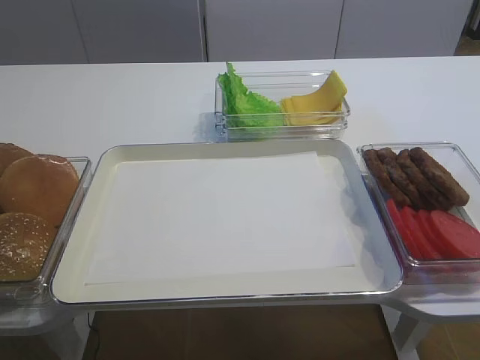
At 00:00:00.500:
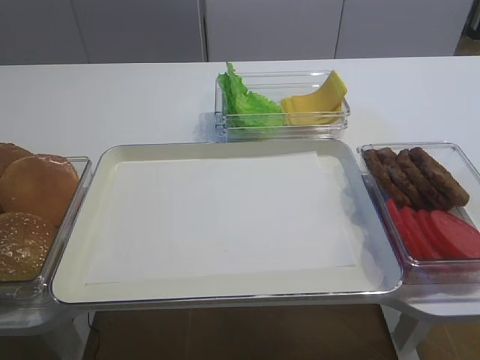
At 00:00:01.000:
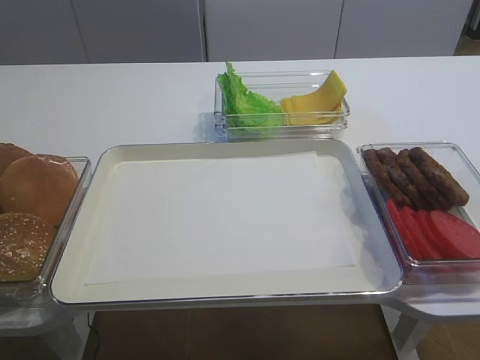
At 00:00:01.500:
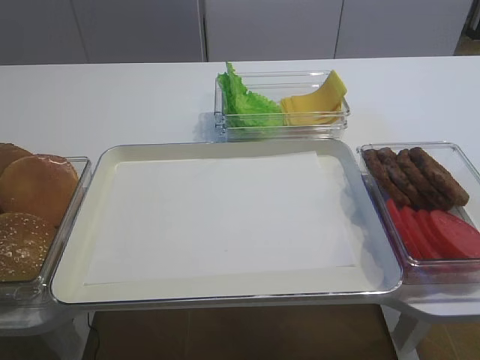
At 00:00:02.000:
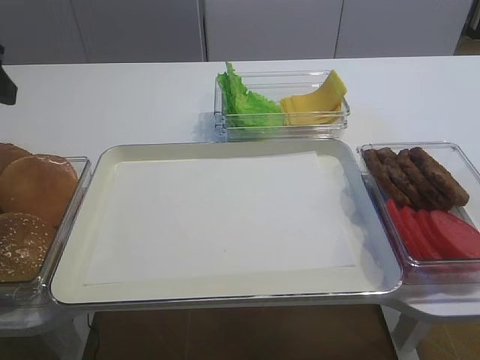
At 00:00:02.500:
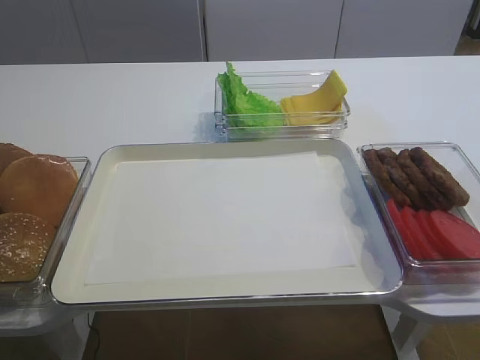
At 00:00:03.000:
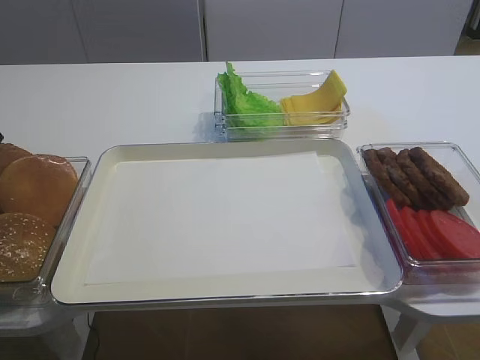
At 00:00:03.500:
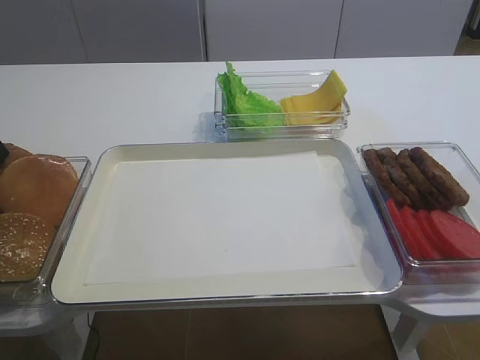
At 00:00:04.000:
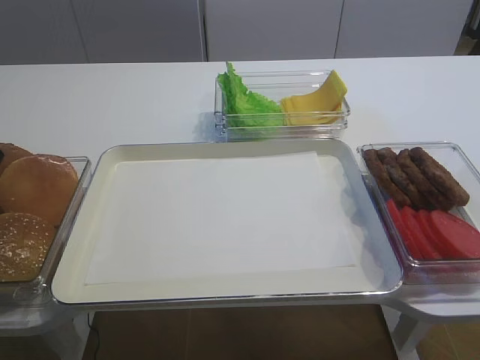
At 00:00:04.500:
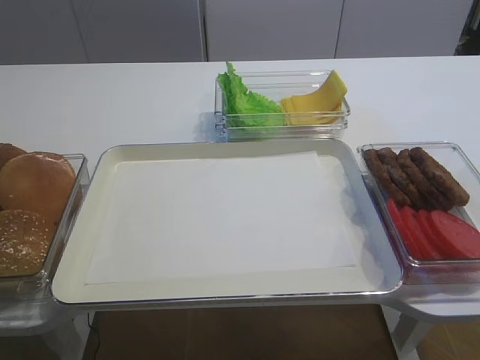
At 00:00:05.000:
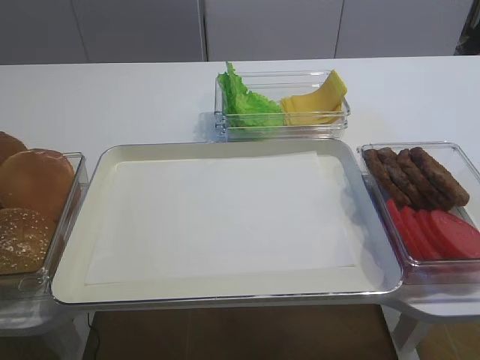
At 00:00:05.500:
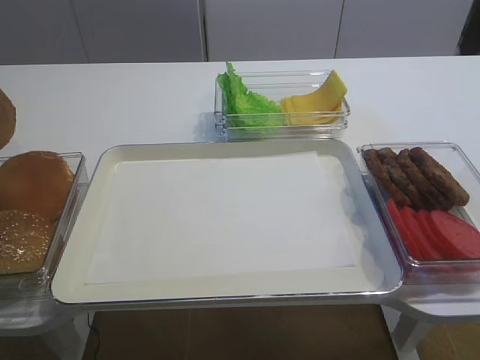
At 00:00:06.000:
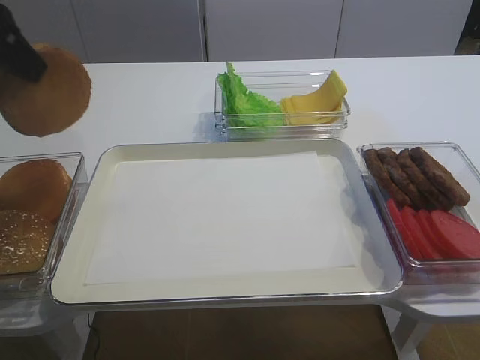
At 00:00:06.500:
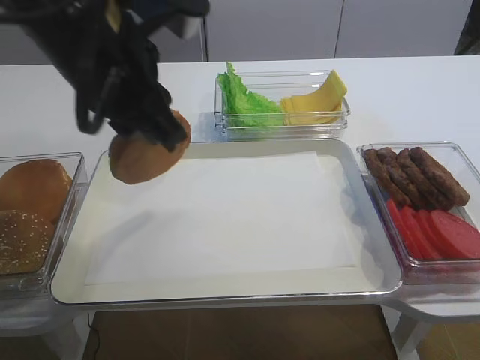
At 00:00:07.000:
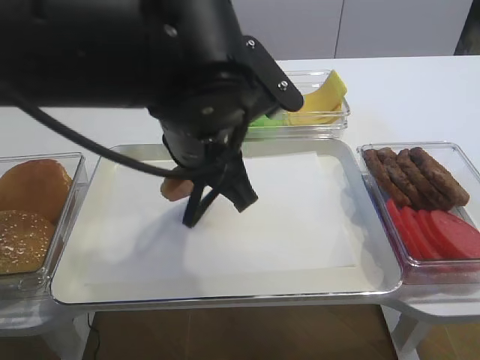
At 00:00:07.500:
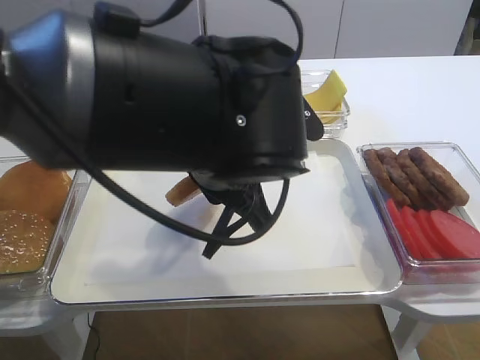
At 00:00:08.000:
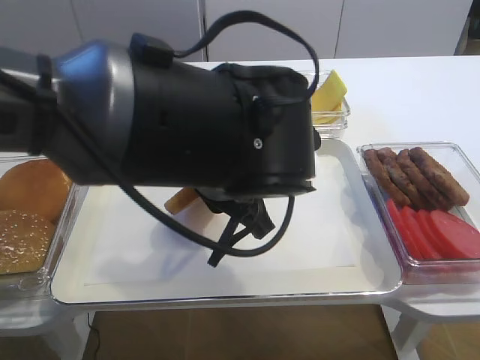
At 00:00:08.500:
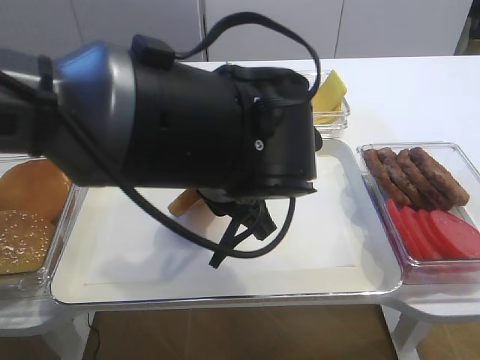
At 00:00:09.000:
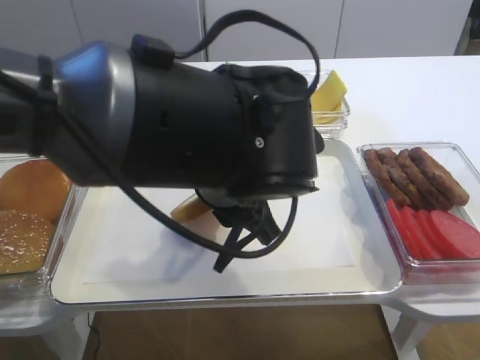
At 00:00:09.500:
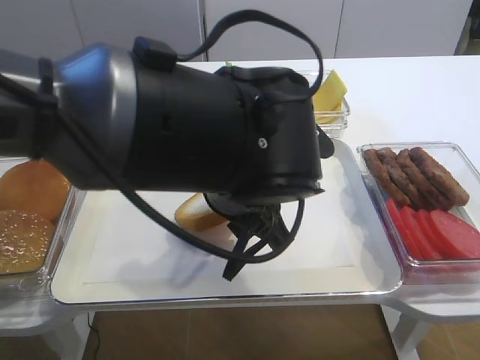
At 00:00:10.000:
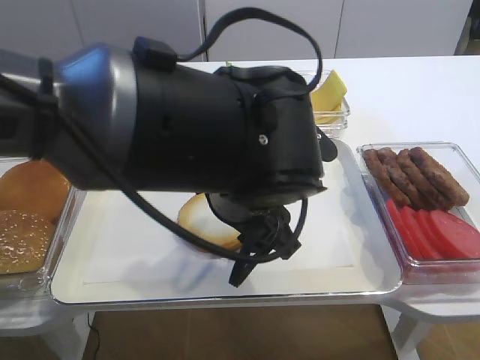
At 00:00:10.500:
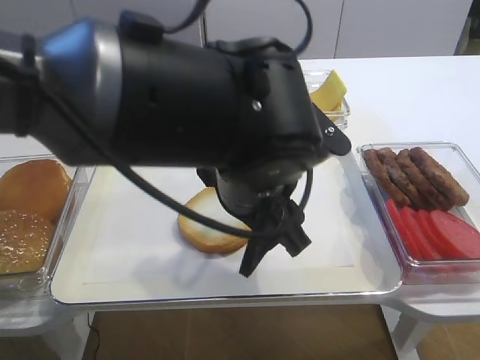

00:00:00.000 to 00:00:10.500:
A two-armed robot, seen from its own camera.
Step, 00:00:06.000 to 00:00:10.500: Place the bread slice on the tray with the left gripper.
00:00:04.000 to 00:00:06.500: The left gripper shifts some 25 cm to the right, and closes.
00:00:06.500 to 00:00:08.500: The left gripper shifts about 15 cm to the right and downward.
00:00:08.500 to 00:00:10.500: The left gripper opens up.

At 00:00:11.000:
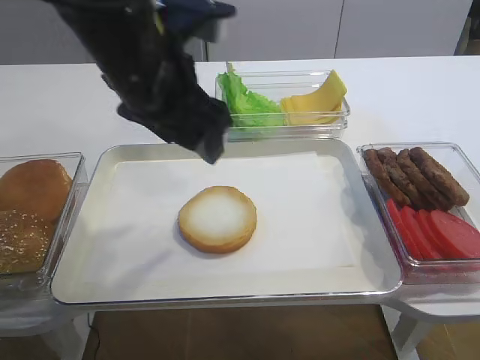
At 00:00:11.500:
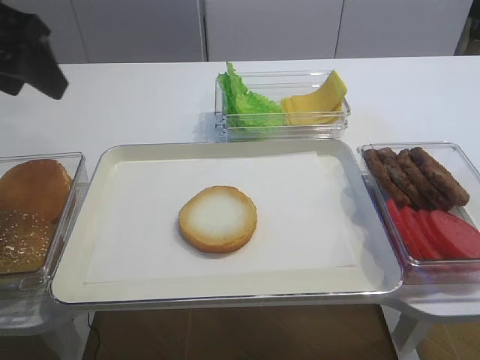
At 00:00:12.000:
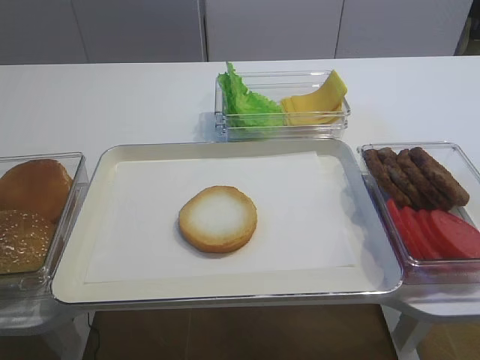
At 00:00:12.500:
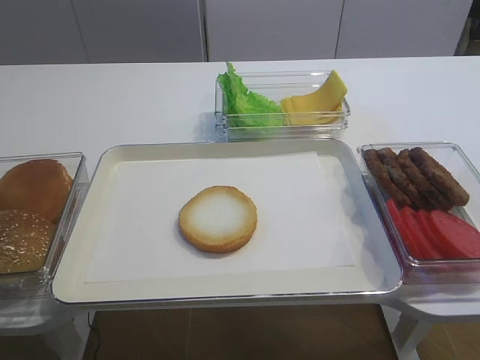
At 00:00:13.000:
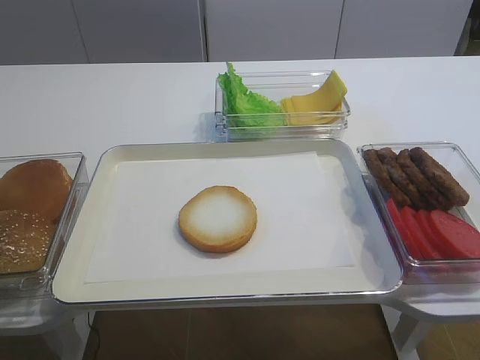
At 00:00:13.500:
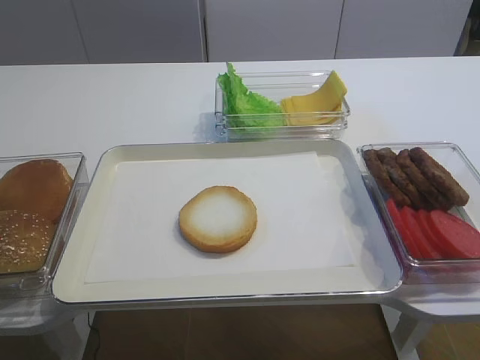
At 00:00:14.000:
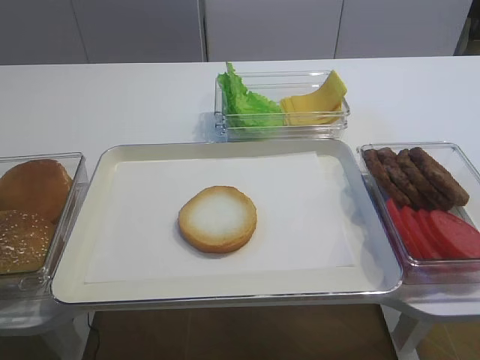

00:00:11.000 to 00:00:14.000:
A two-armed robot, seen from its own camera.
00:00:11.000 to 00:00:12.500: The left gripper shifts approximately 30 cm backward and to the left.

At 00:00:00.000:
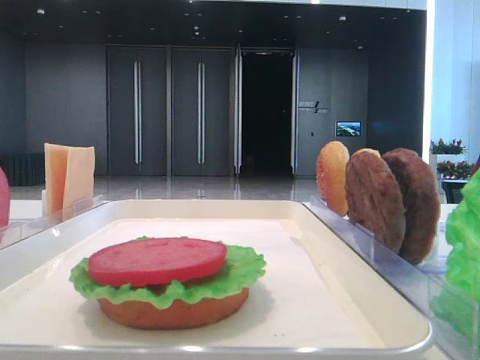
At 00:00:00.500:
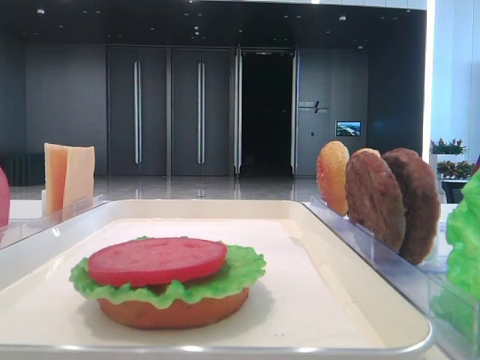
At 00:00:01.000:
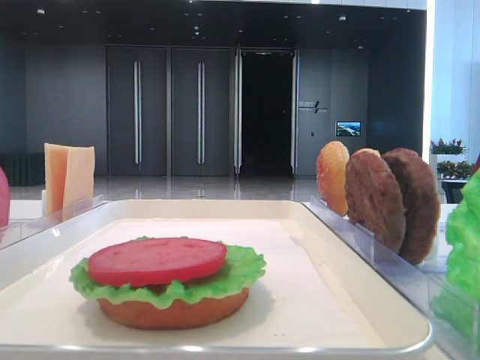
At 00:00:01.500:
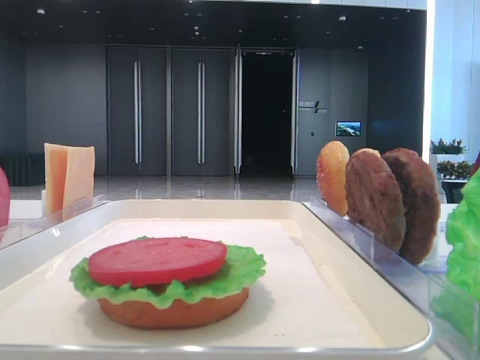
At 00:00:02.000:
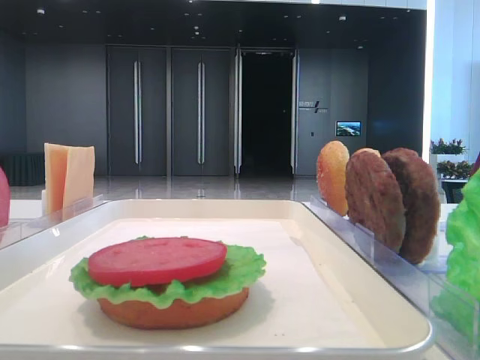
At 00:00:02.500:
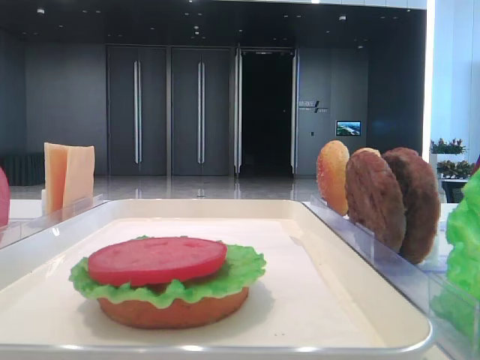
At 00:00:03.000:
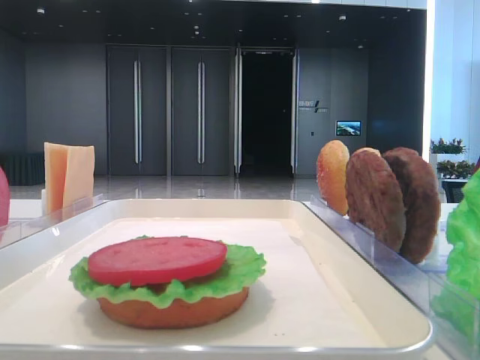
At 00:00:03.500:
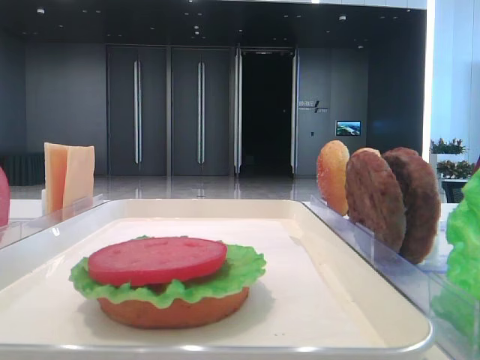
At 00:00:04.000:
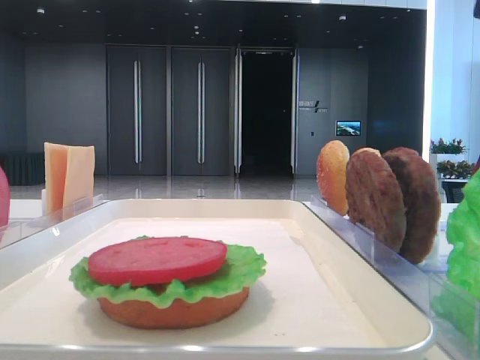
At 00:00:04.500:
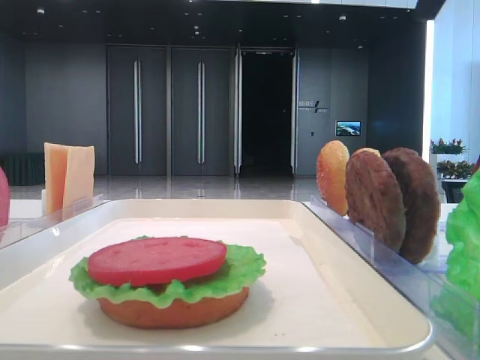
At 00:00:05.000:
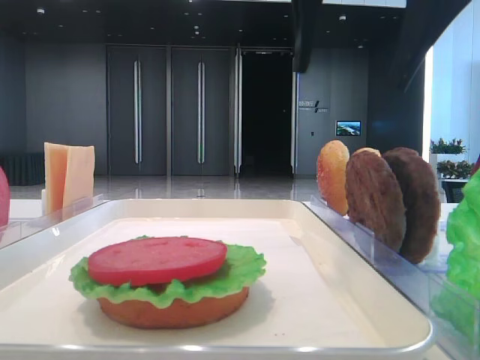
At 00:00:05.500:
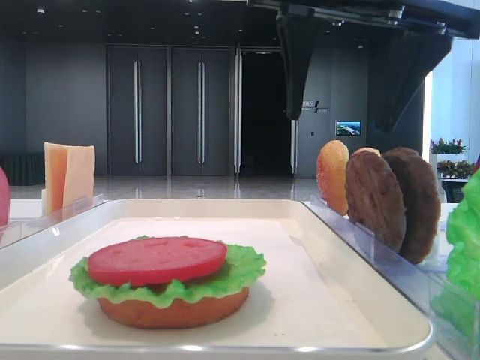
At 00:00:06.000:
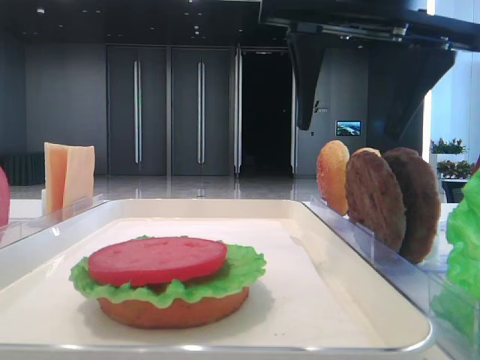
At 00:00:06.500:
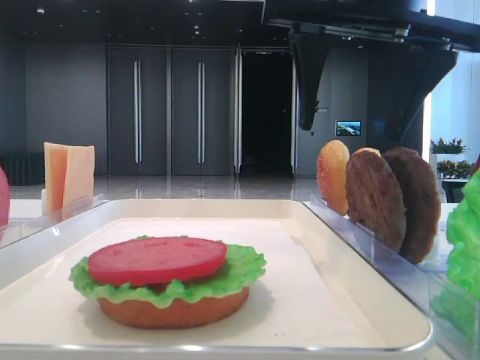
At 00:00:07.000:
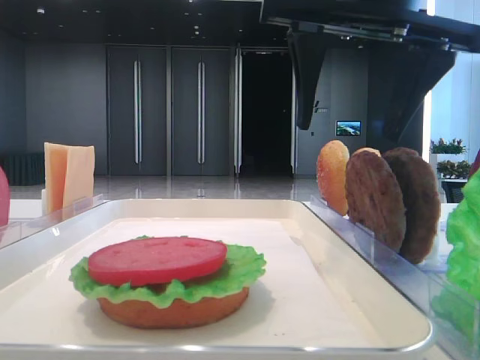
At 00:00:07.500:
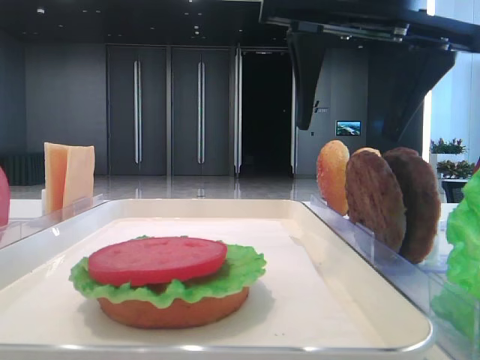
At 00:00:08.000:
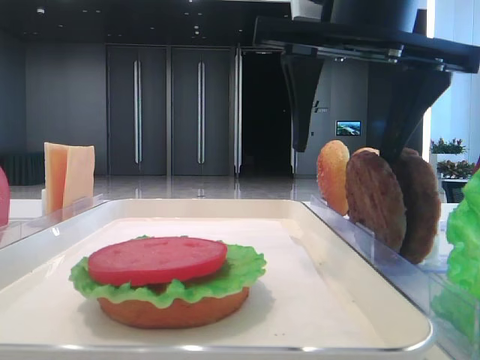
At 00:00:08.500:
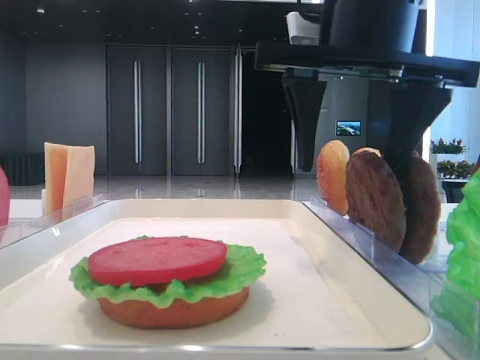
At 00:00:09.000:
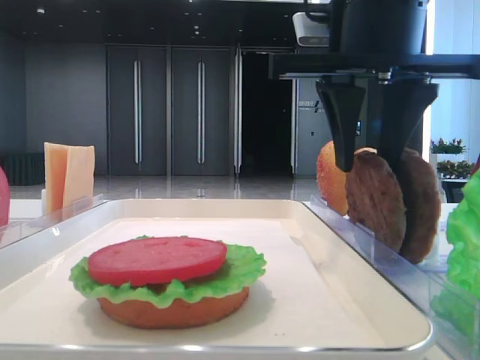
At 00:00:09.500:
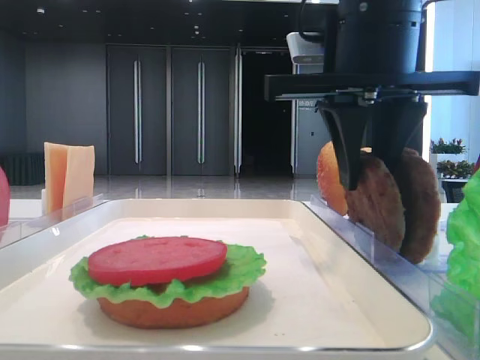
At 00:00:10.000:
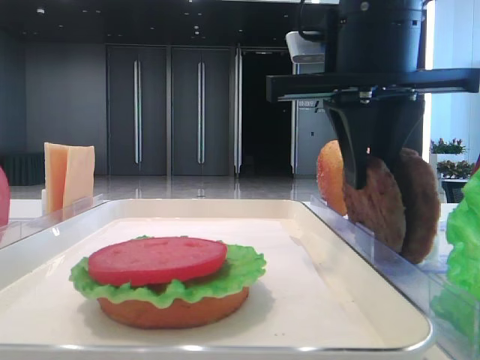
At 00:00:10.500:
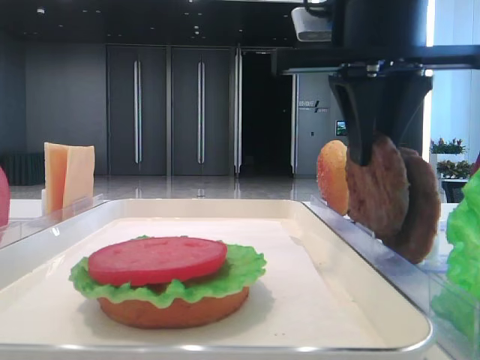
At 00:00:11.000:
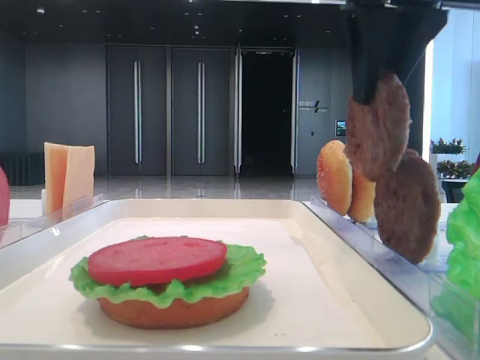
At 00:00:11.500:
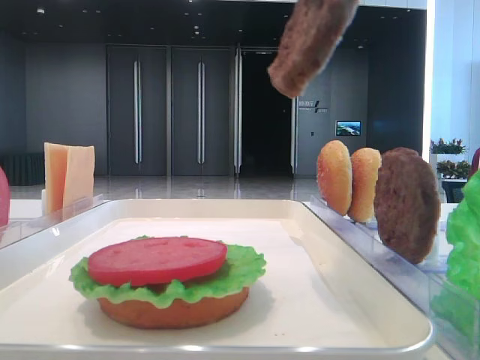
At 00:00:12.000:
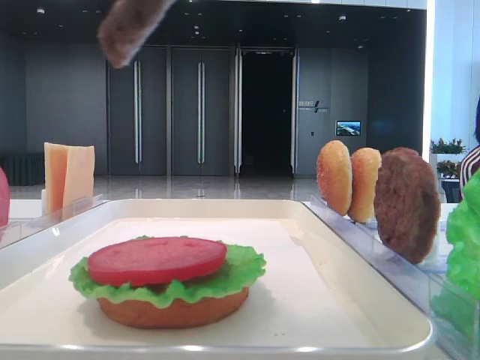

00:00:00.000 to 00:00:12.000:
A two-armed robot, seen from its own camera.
Step, 00:00:00.000 to 00:00:10.000: Grab the patty with the right hand.
00:00:04.000 to 00:00:06.000: The right gripper goes some 10 cm downward and forward.
00:00:06.000 to 00:00:08.000: The grippers move only a little.
00:00:08.000 to 00:00:10.000: The right gripper closes up.
00:00:10.000 to 00:00:12.000: The right gripper heads backward and upward, covering about 15 cm.
